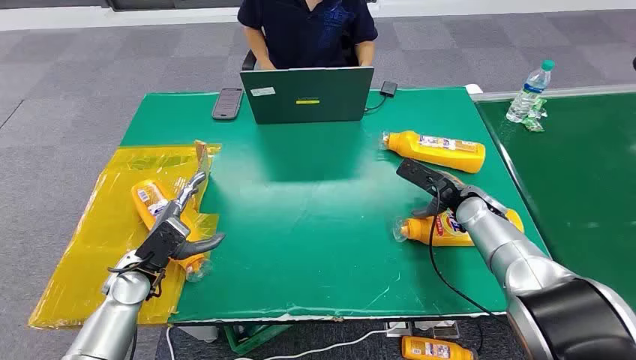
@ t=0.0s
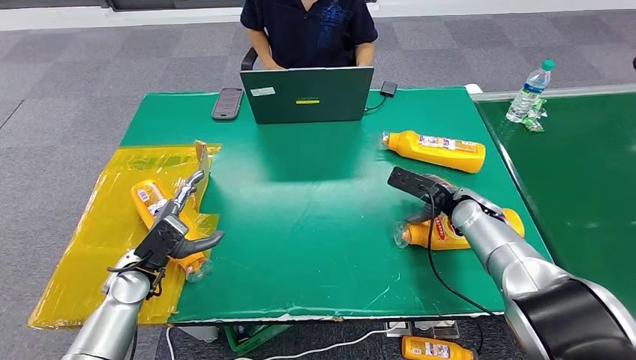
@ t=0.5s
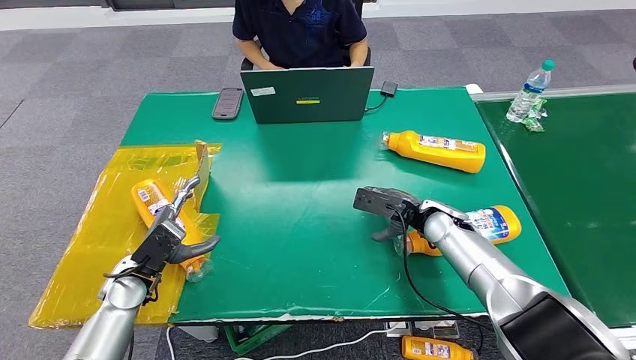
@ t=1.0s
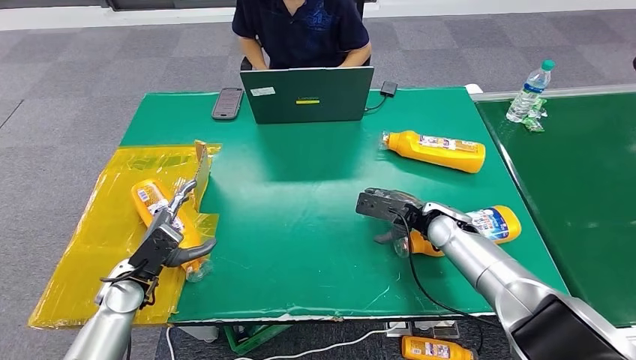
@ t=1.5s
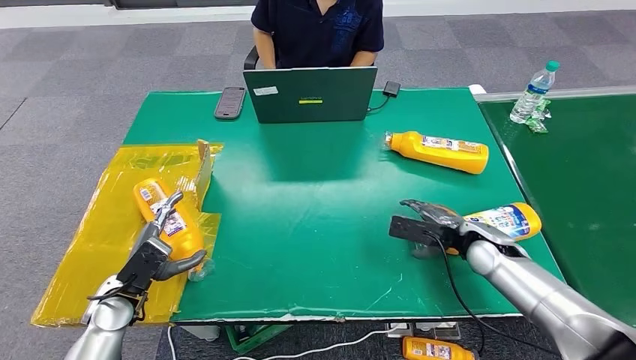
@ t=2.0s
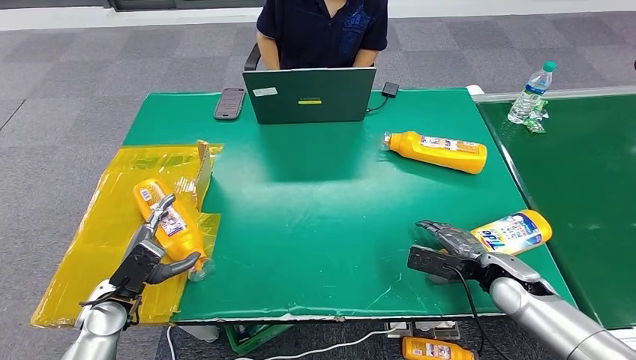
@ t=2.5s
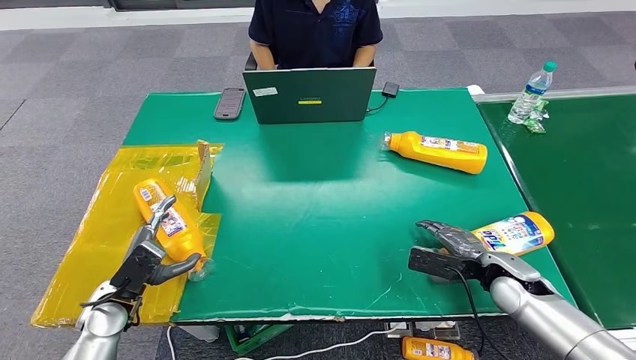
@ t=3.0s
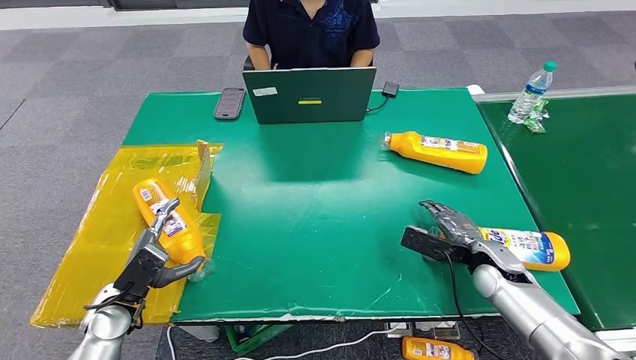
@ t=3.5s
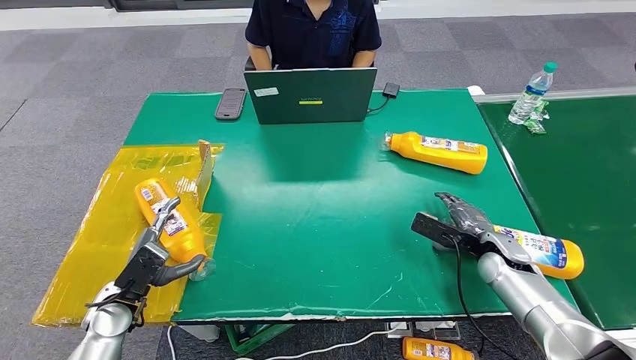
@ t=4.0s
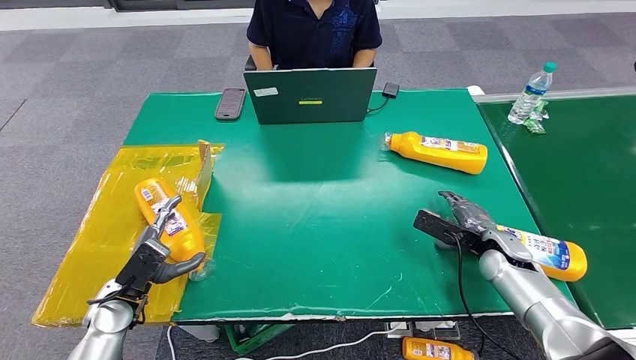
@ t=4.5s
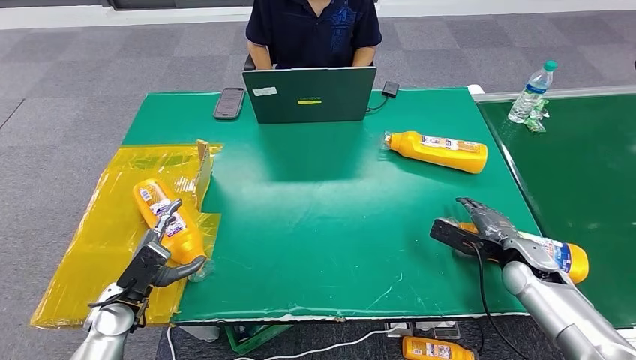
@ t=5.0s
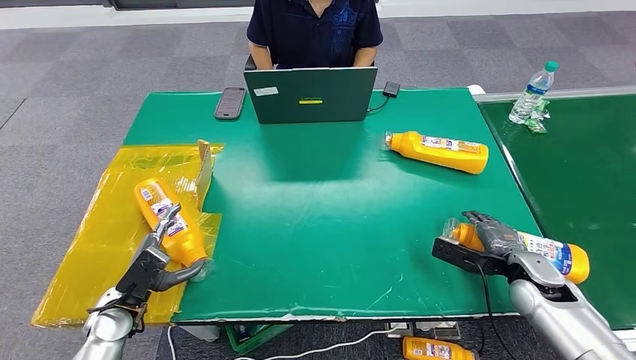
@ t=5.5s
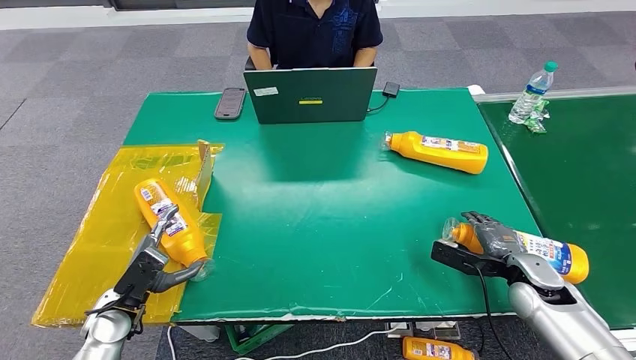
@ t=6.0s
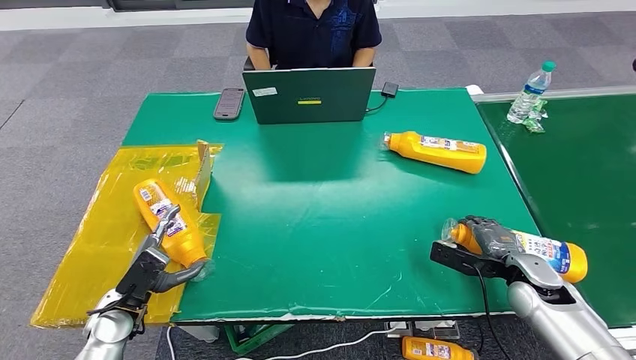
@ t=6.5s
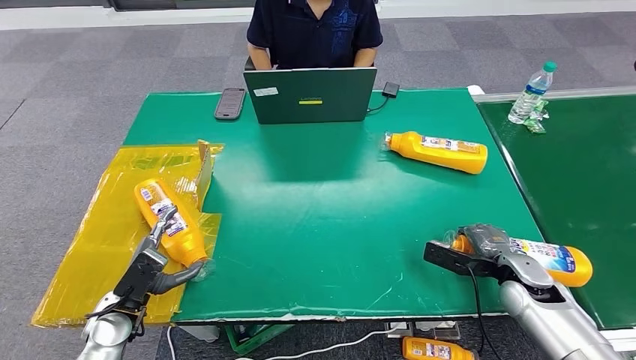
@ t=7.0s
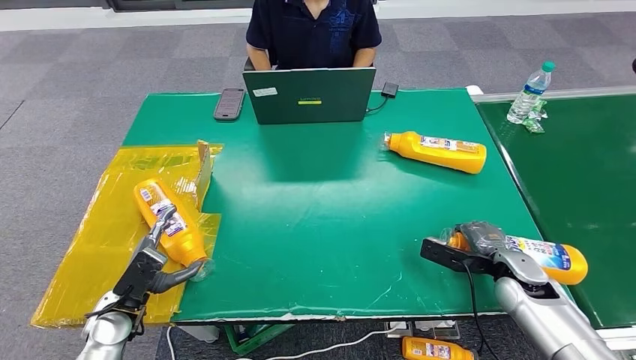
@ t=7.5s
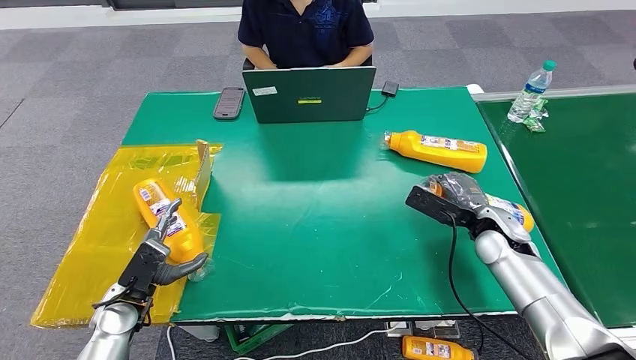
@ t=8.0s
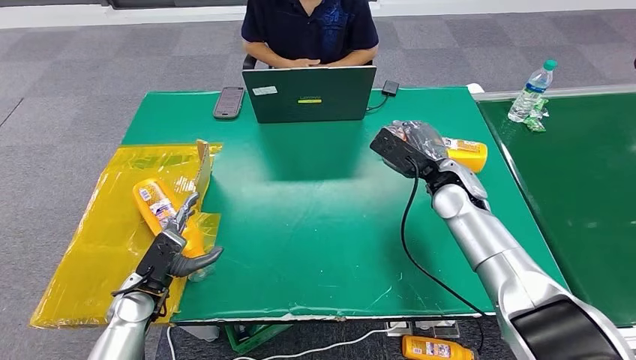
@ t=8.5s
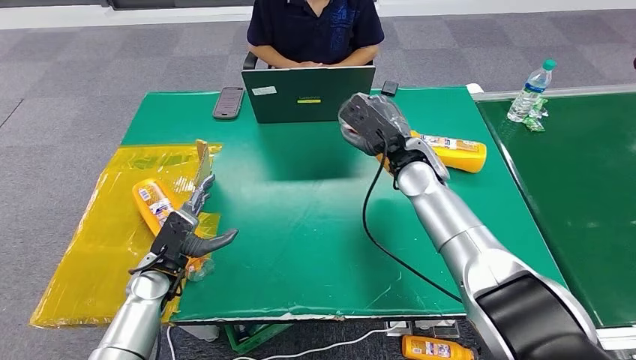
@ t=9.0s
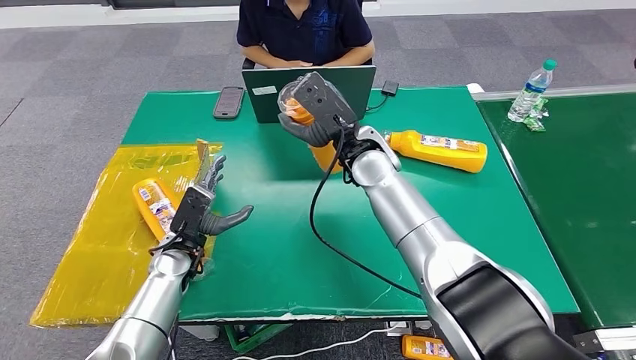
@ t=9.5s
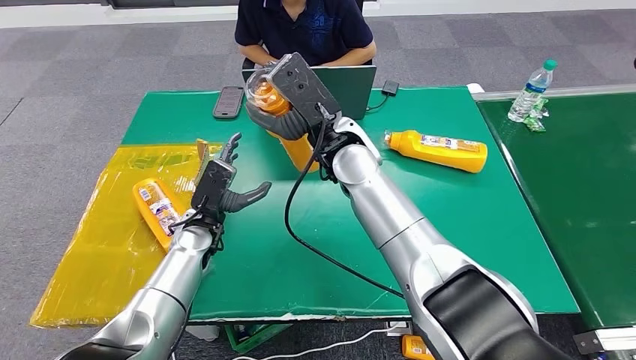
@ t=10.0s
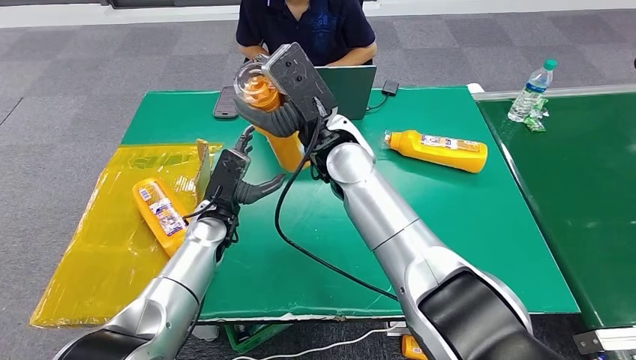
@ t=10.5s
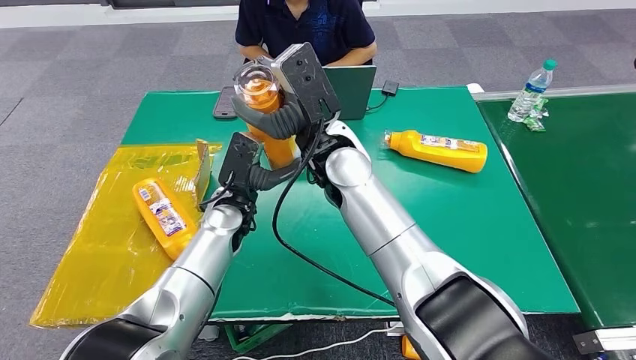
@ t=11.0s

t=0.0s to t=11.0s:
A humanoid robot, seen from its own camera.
Step, t=0.0s to t=8.0s: Pick up the bottle from the table.
t=2.0s to t=3.5s: The right hand moves roughly 5 cm.
t=3.5s to t=5.5s: The right hand is displaced to the right by approximately 5 cm.
t=5.5s to t=7.5s: The hands stay close to where they were, moving slightly.

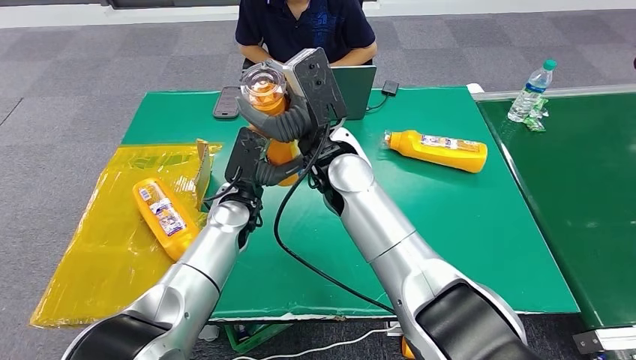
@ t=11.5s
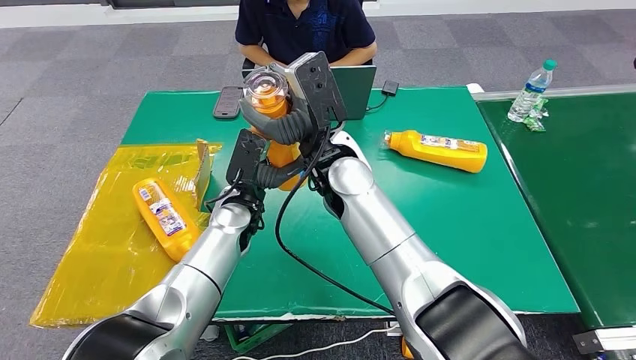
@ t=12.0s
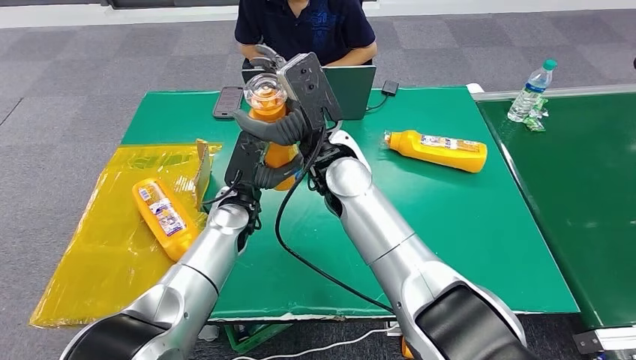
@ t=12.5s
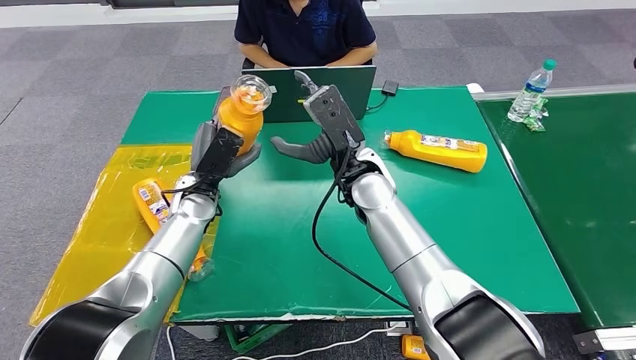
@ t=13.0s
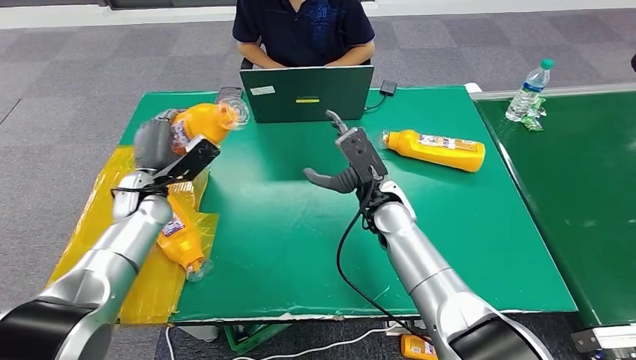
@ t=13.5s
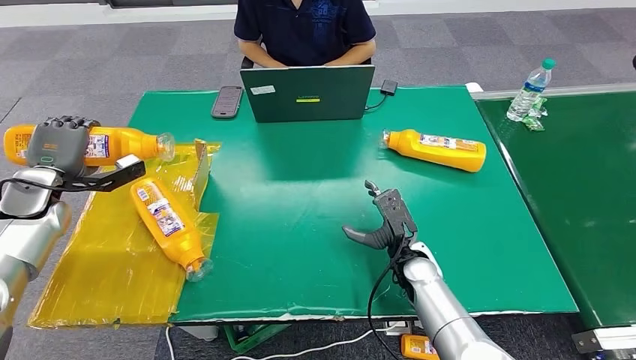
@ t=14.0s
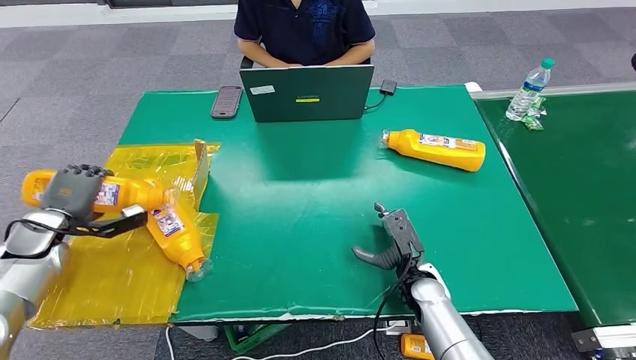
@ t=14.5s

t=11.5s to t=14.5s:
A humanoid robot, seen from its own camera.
Step, t=11.5s to t=14.5s: Turn the bottle to the front side.
